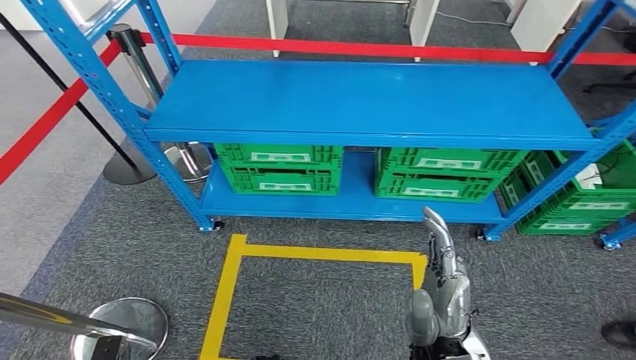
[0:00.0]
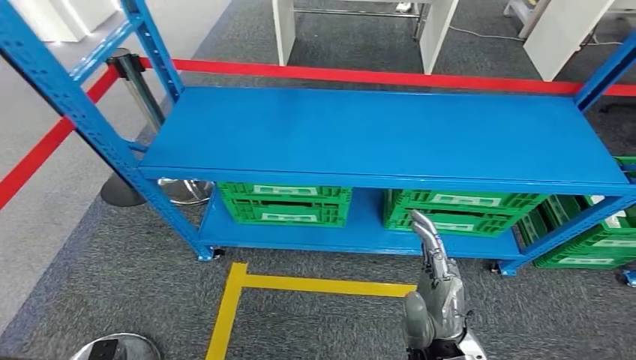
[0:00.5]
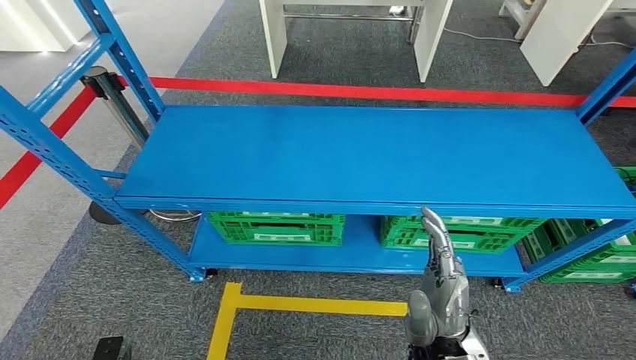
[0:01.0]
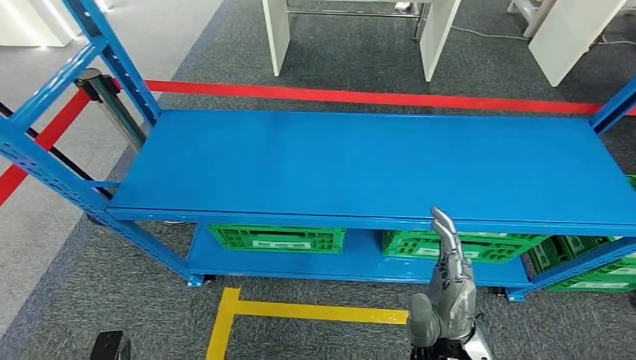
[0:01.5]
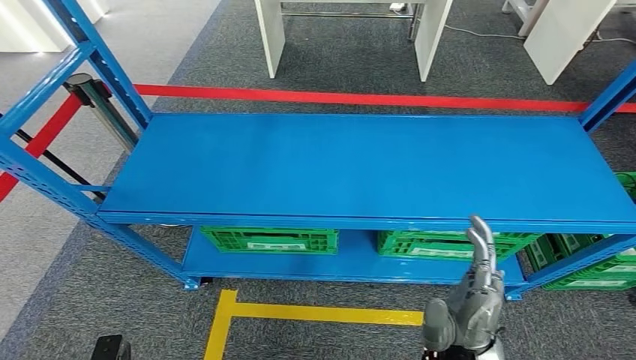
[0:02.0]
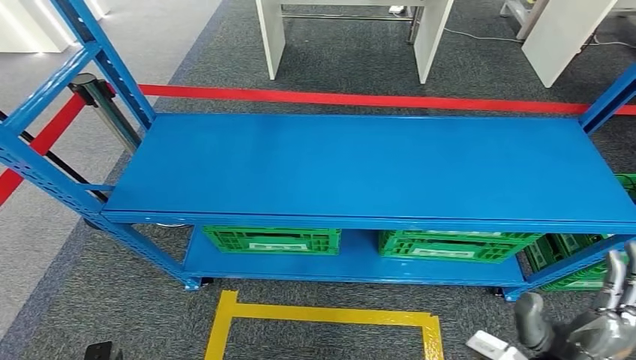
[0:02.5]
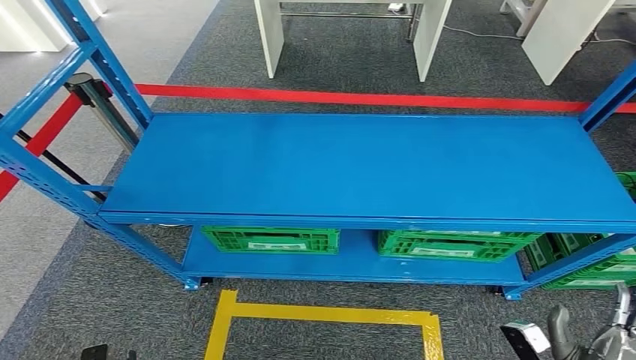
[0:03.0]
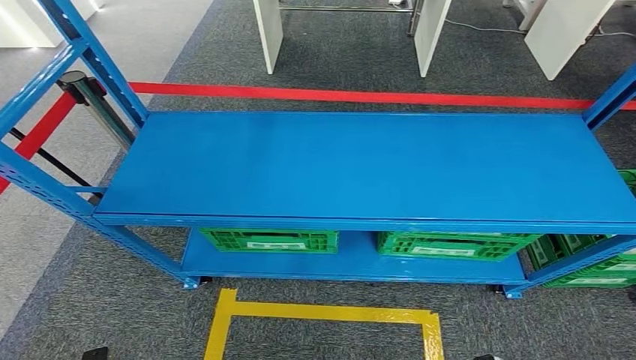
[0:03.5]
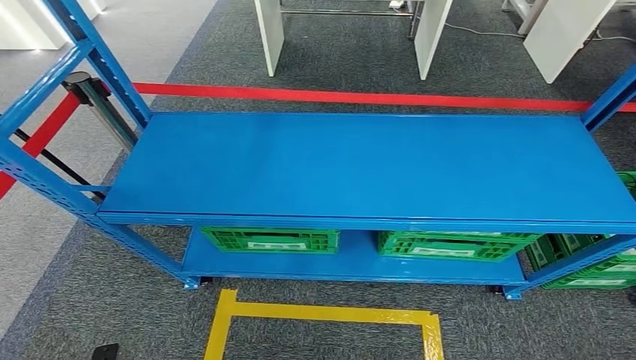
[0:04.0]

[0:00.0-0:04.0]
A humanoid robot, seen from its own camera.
Step, 0:00.0 to 0:04.0: Return to the initial position at the workbench.
0:02.0 to 0:04.0: The right hand moves downward and backward, approximately 30 cm.

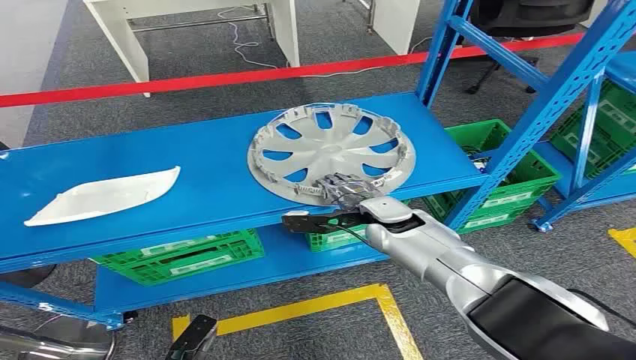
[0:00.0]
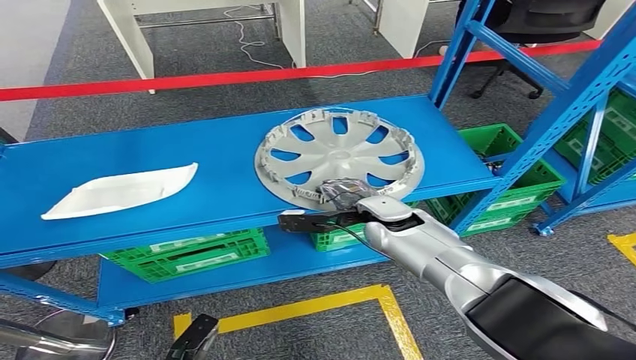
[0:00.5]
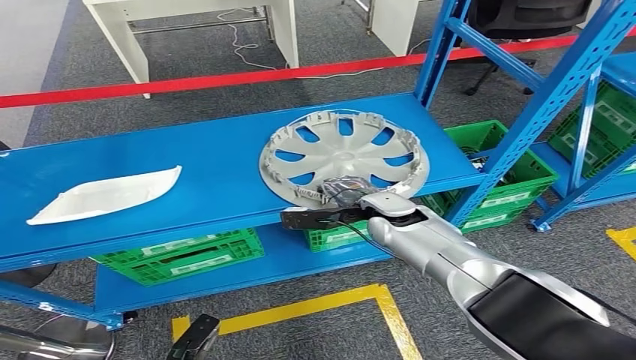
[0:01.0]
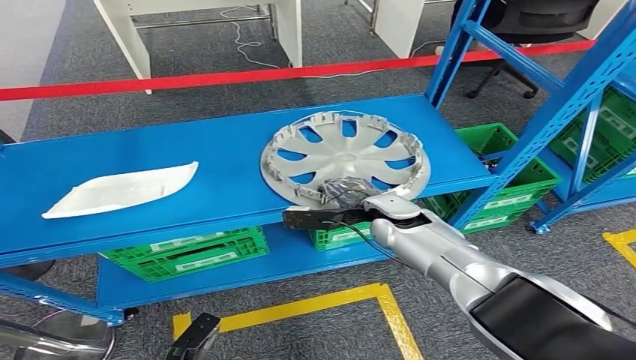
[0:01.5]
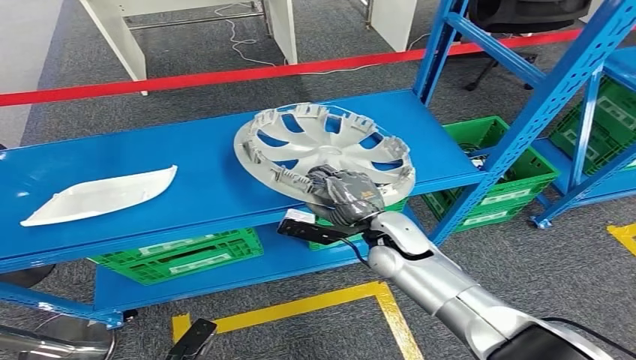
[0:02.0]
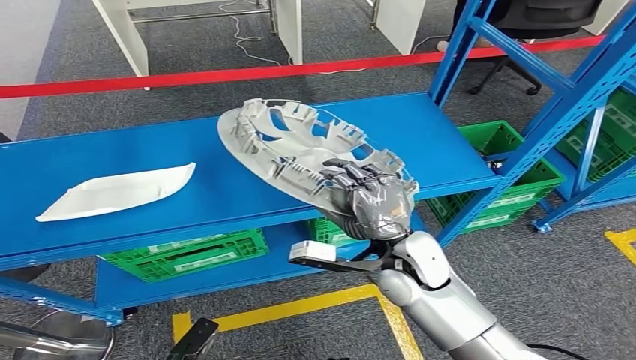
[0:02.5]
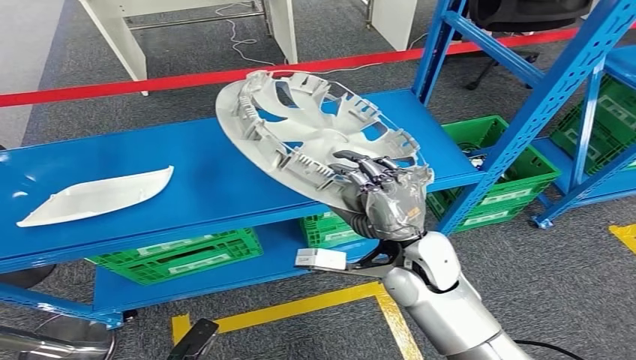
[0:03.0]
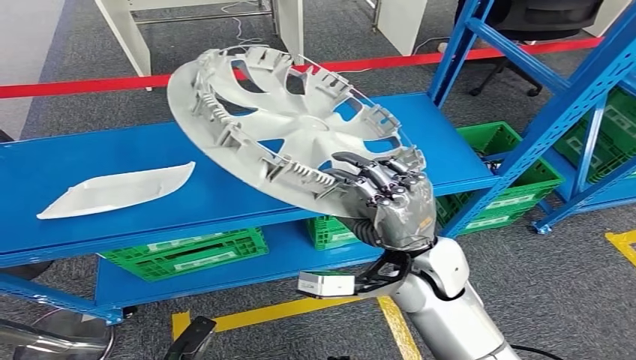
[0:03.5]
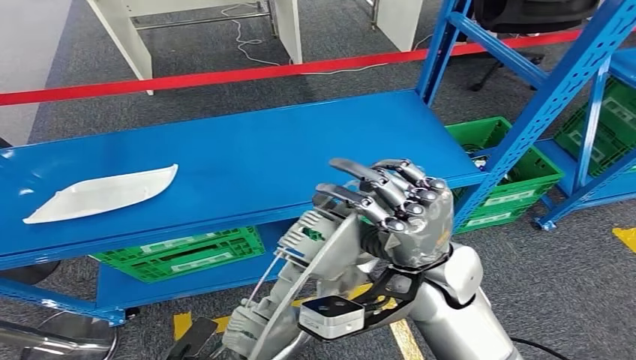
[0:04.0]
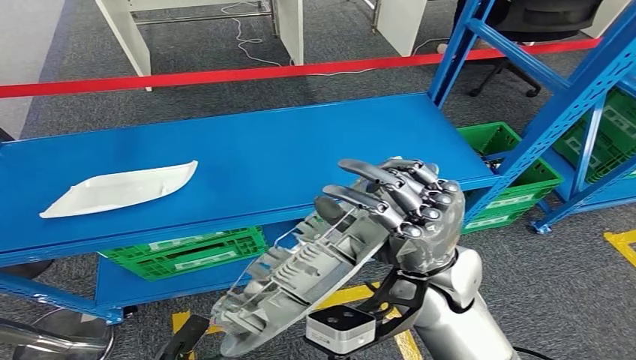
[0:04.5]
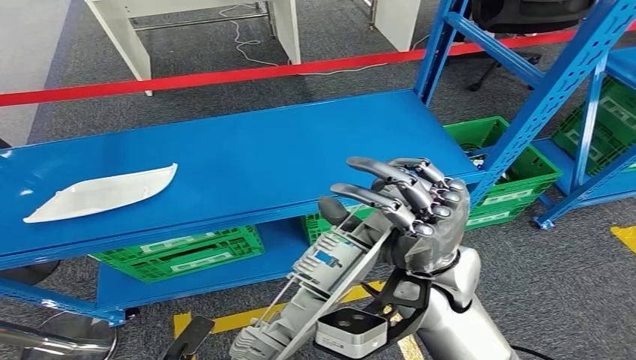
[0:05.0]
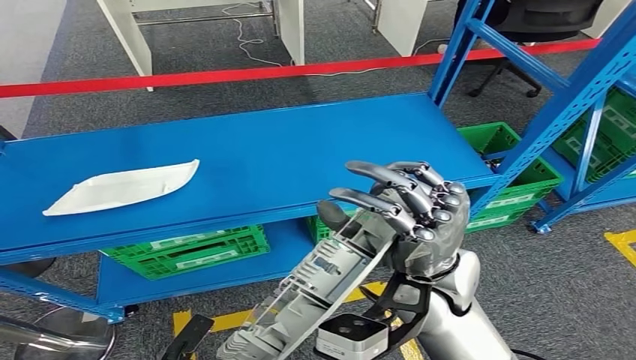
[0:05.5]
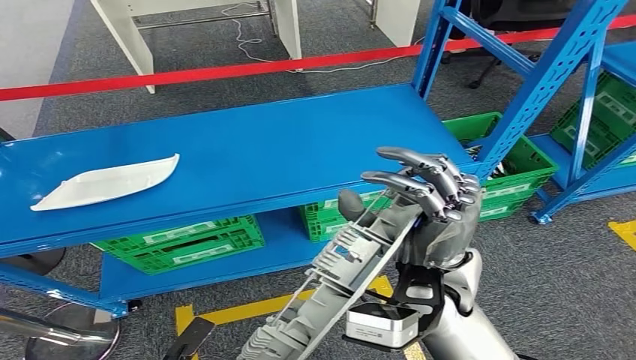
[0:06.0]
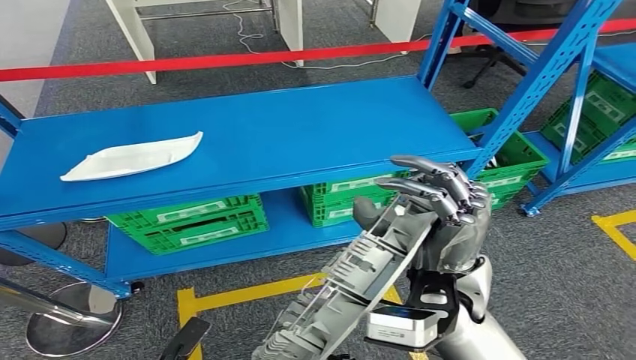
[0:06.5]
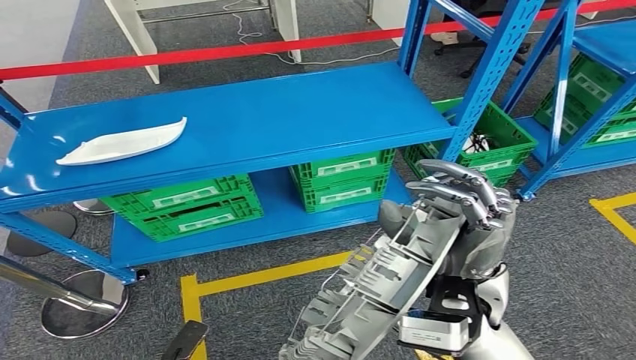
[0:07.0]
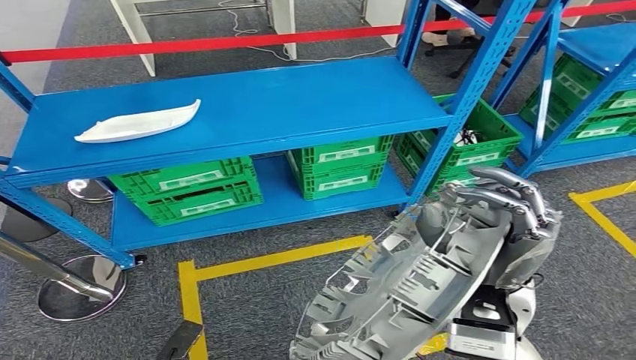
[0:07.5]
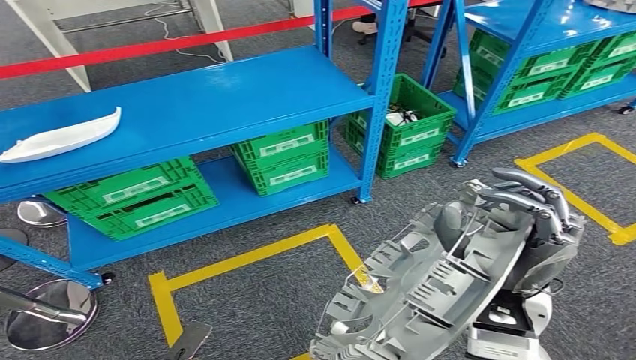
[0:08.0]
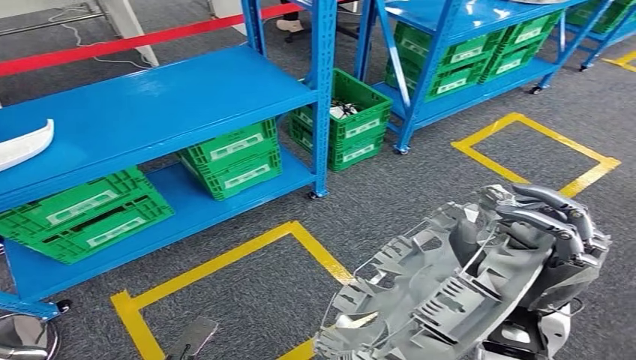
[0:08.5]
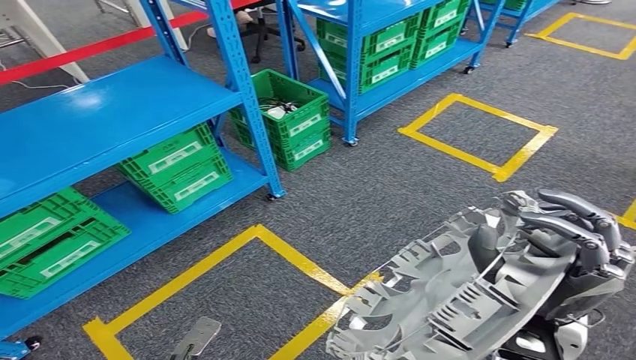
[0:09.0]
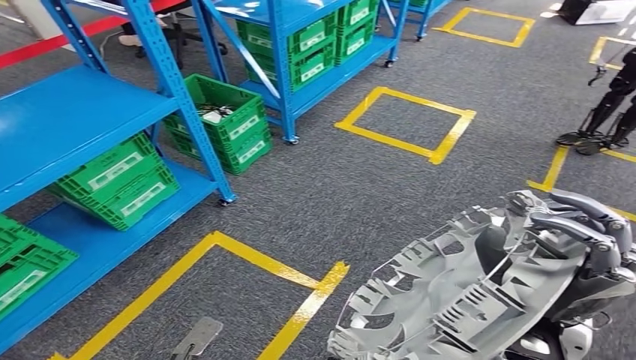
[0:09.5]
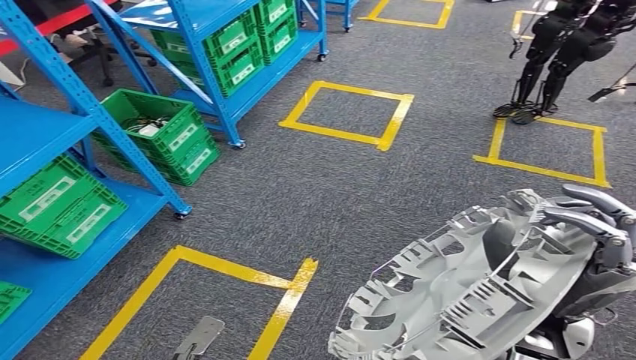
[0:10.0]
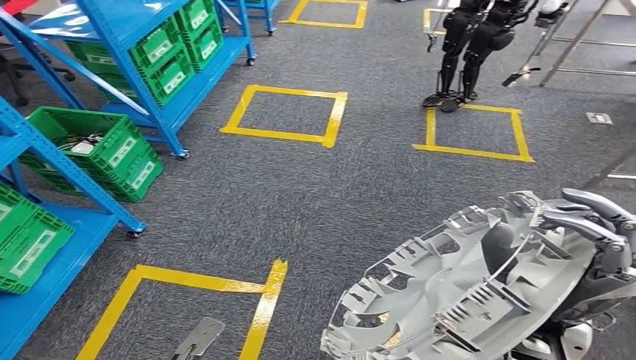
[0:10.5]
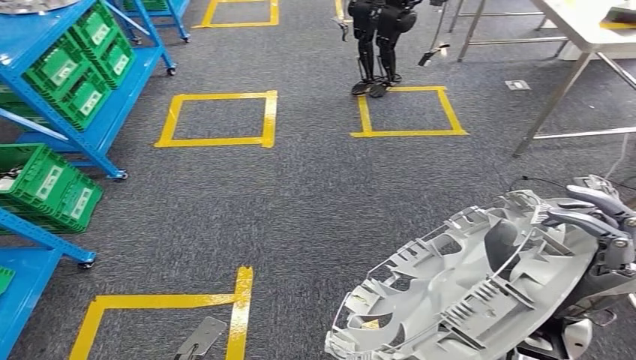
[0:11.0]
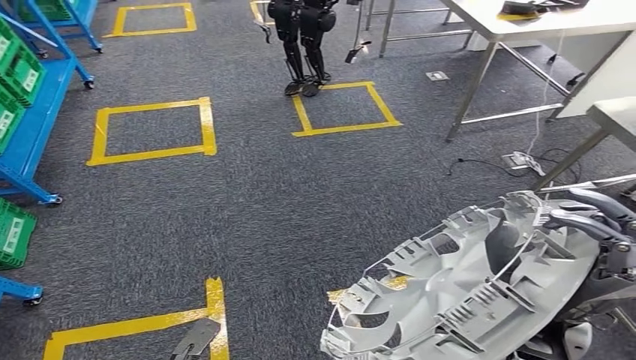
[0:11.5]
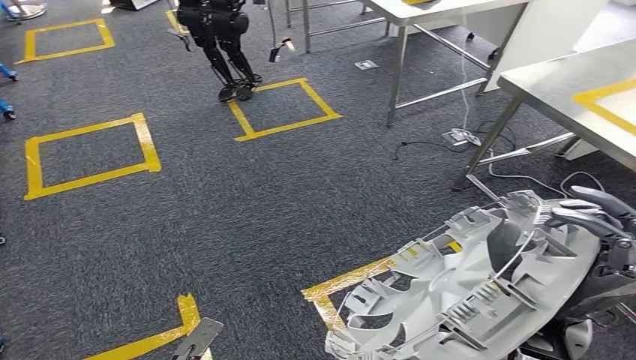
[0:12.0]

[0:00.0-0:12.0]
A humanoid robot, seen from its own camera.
Step, 0:00.0 to 0:06.5: Pick up the small component from the shelf.

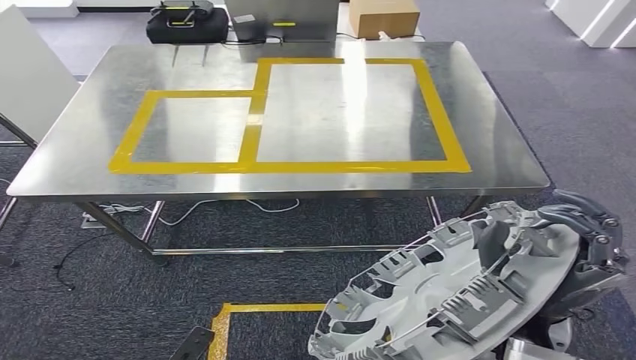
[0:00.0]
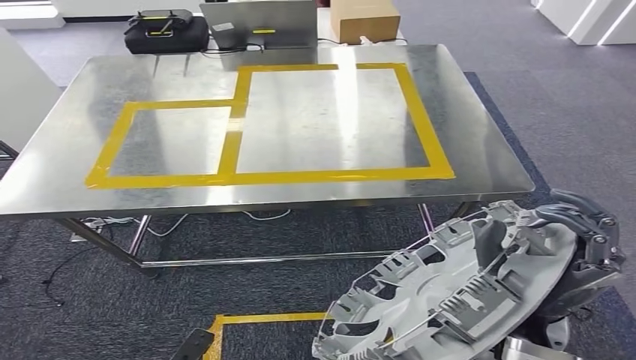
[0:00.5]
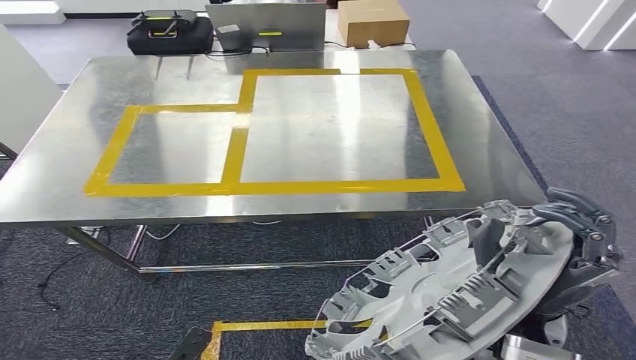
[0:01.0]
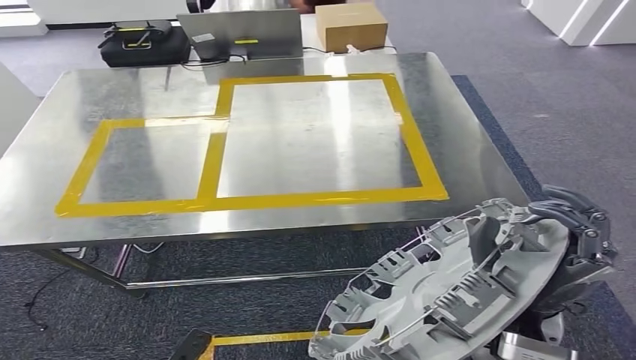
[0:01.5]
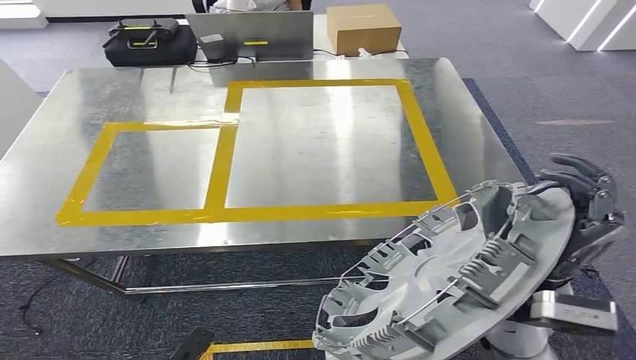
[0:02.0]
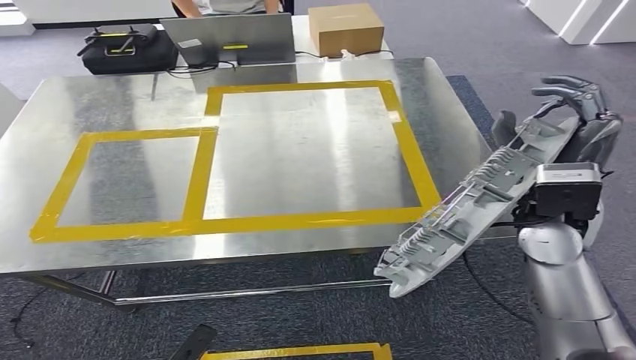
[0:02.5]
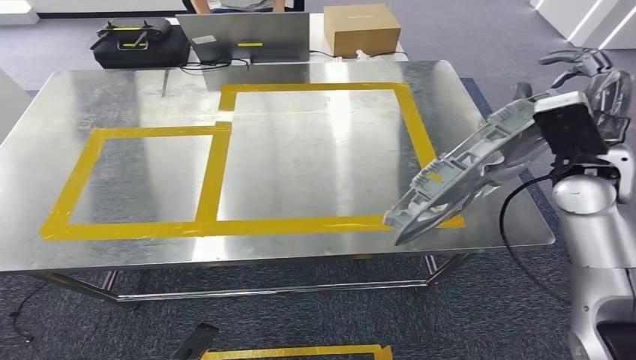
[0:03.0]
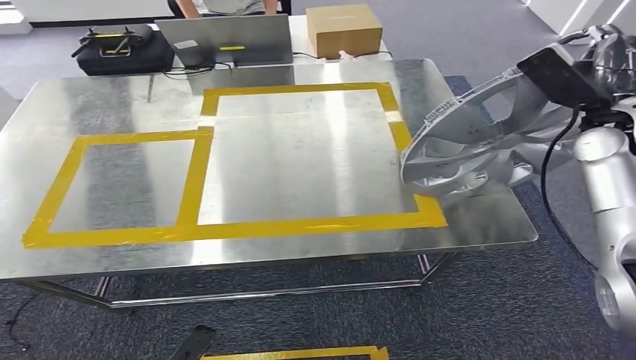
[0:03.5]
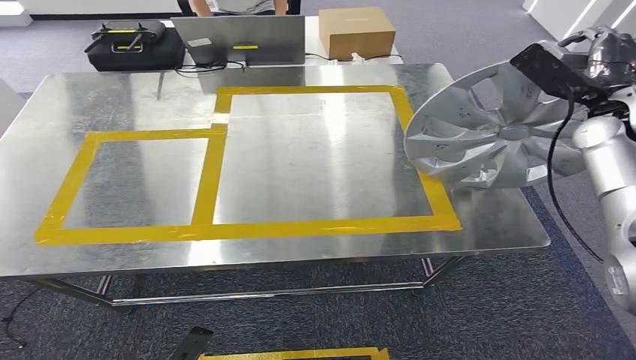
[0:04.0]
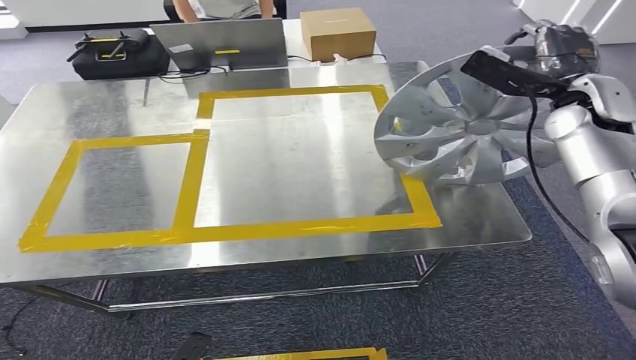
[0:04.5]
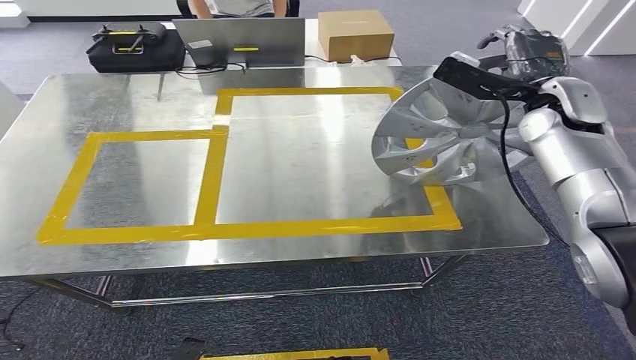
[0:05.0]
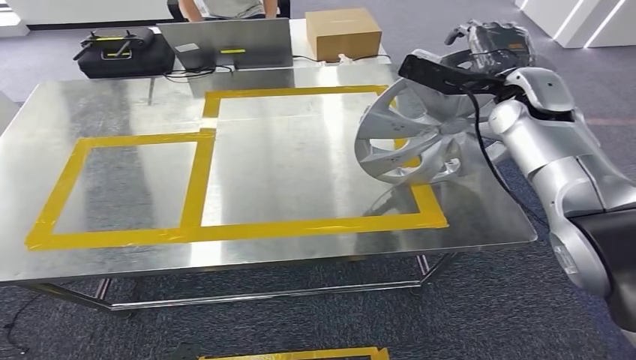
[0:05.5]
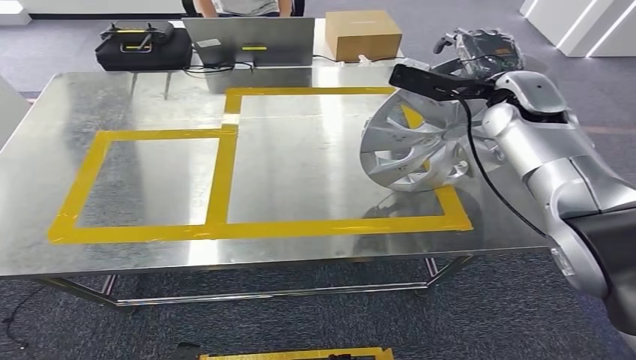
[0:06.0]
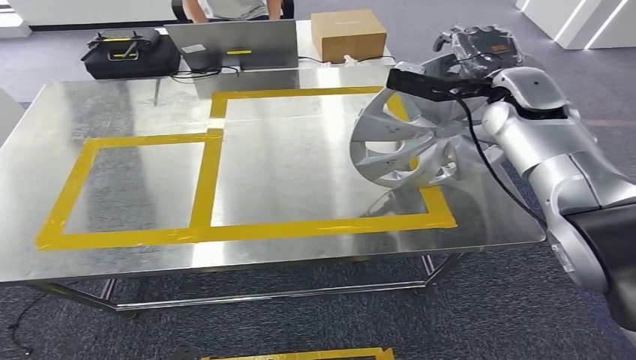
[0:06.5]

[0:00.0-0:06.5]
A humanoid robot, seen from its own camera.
Step, 0:00.0 to 0:02.5: Move the small component to the workbench.
